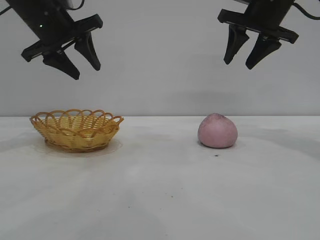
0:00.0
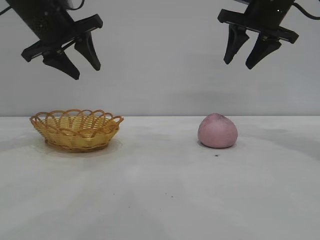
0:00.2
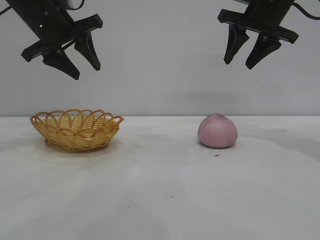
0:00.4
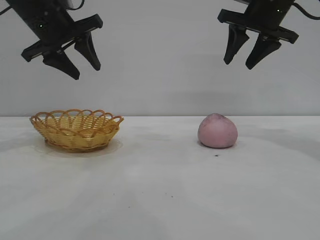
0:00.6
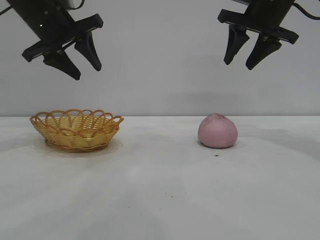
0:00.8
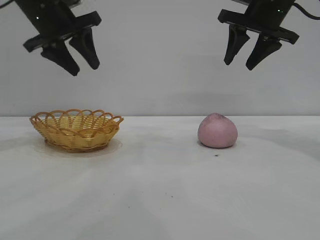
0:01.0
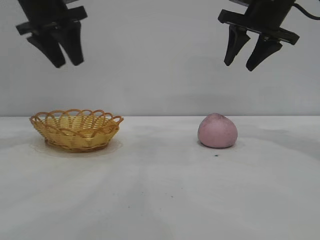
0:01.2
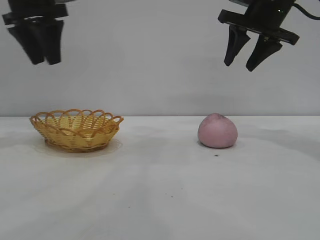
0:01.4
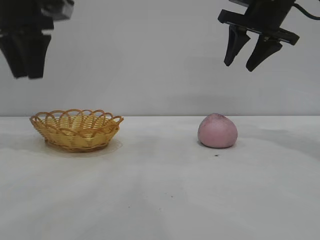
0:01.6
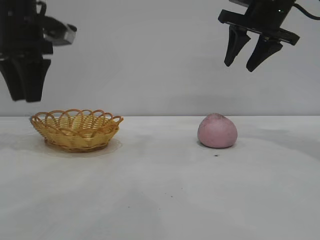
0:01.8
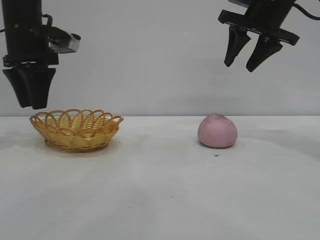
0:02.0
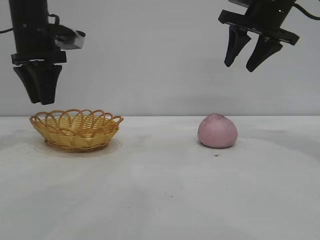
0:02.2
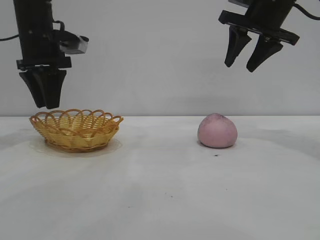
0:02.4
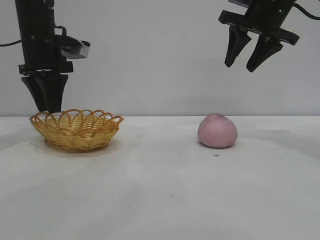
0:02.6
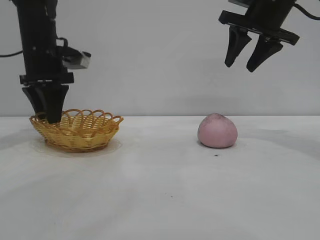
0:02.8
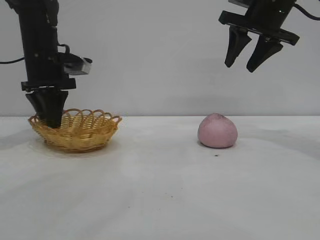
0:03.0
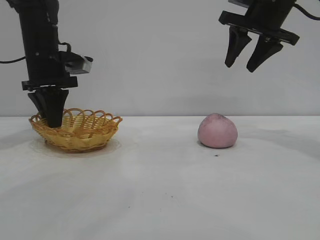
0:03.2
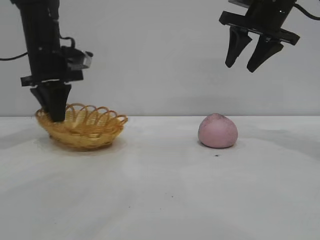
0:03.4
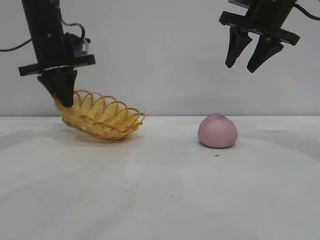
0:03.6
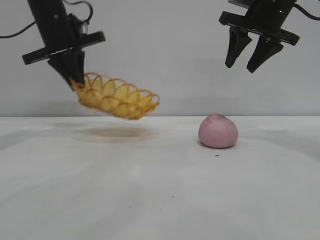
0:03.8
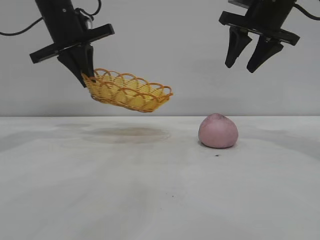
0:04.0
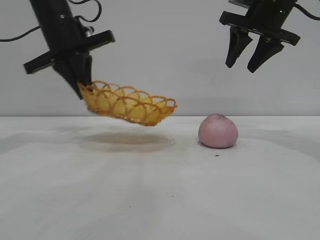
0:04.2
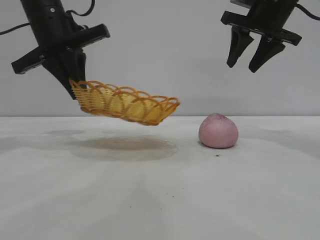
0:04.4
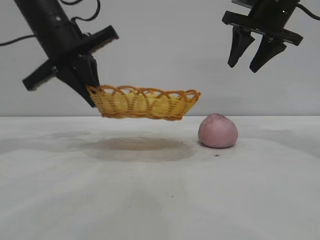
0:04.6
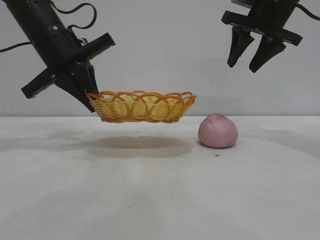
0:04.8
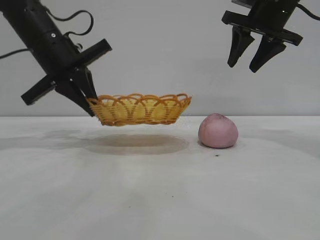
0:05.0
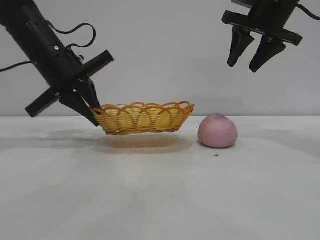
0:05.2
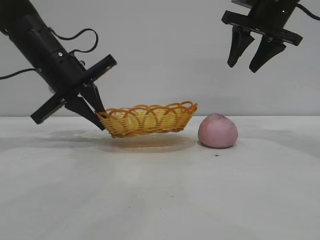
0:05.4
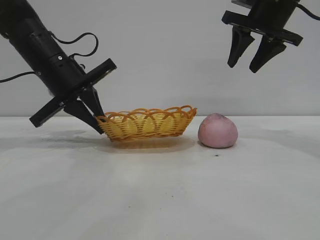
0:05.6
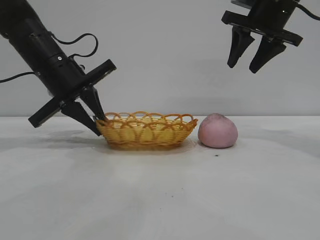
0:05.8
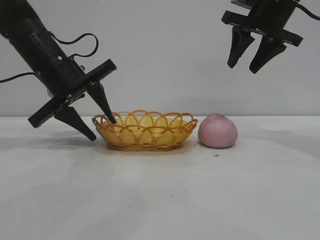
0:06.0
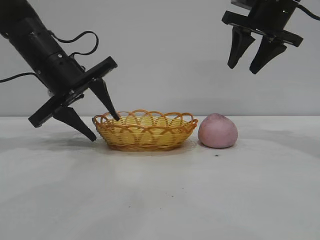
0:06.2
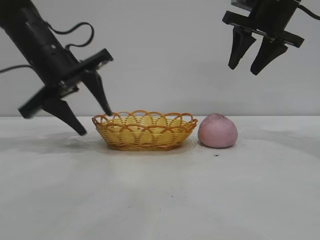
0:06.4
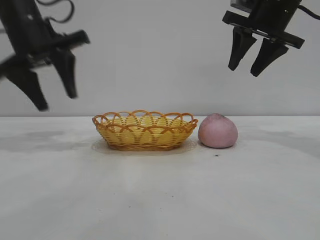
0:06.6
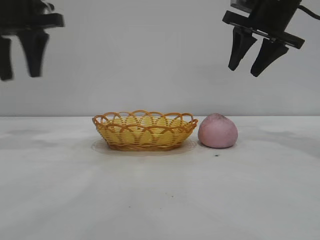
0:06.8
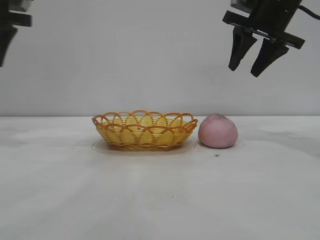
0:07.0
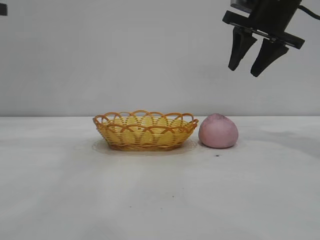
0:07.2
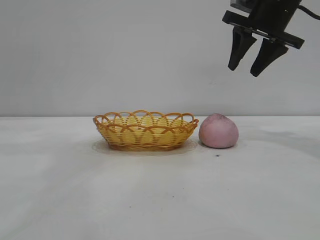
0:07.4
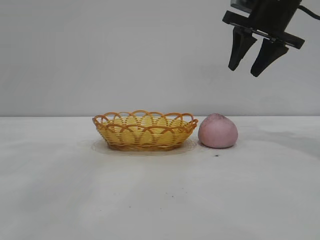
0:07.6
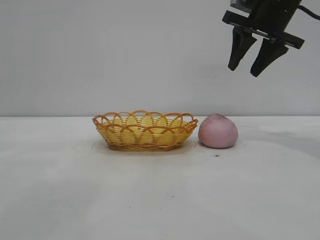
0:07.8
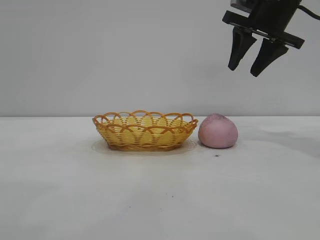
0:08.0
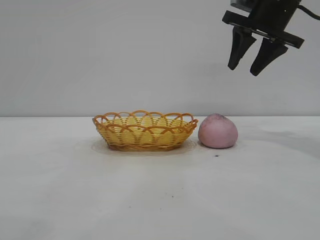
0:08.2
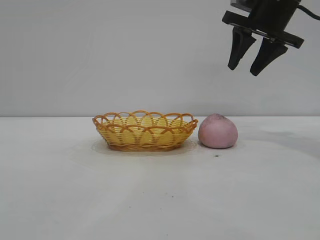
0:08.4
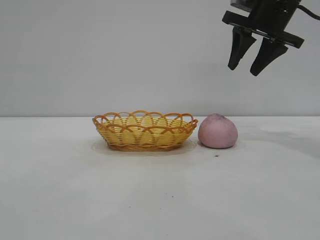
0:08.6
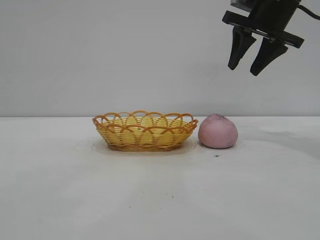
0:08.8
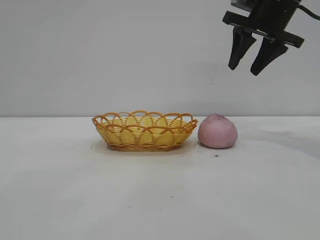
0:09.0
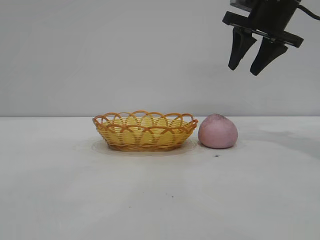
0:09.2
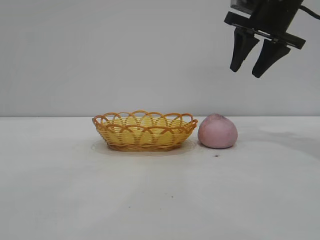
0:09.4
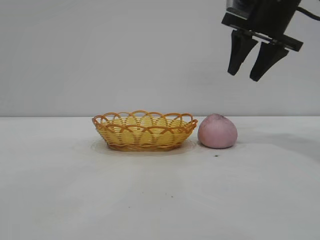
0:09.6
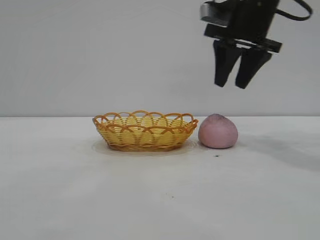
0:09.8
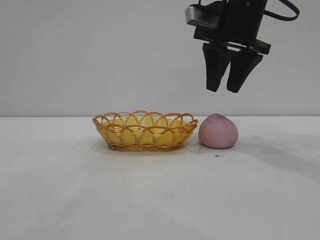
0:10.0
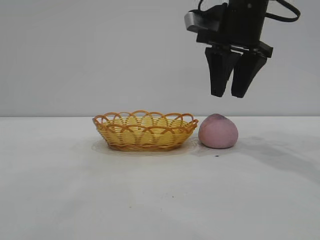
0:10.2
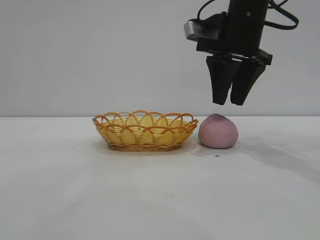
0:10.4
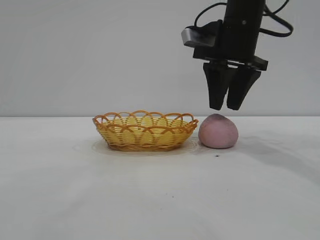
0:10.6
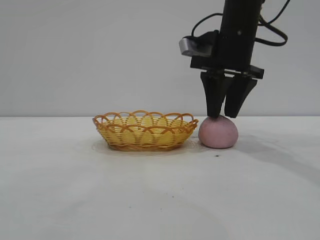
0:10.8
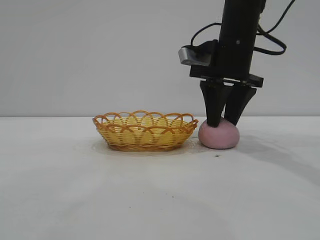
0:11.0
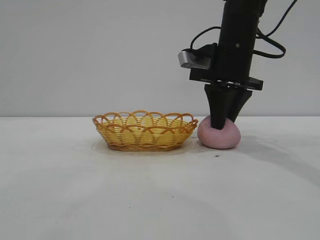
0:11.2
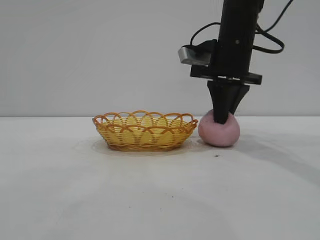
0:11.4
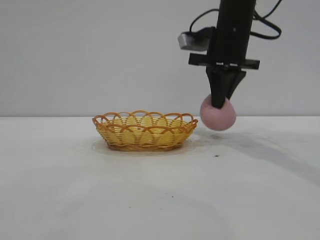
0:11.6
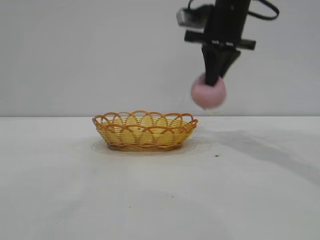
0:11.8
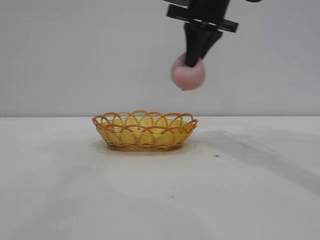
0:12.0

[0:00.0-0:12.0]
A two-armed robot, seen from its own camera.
Task of the whole recording: pick up the peach and put it into the basket.
Step, 0:00.0 to 0:06.4: Move the basket to the center of view.
Step, 0:06.6 to 0:11.6: Pick up the peach.

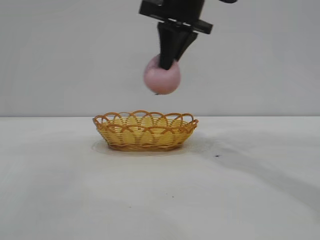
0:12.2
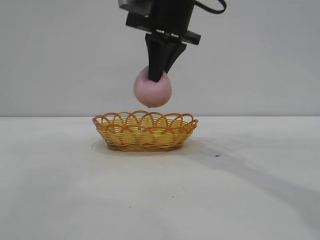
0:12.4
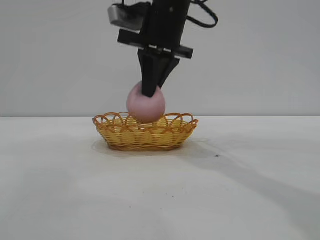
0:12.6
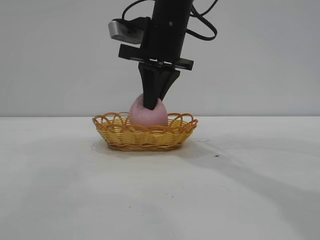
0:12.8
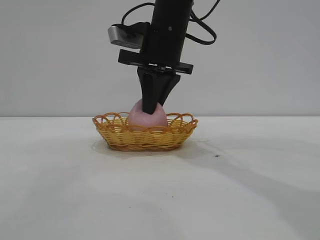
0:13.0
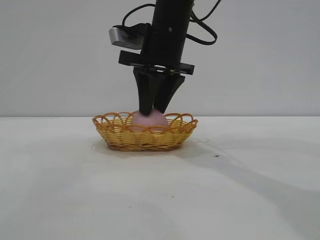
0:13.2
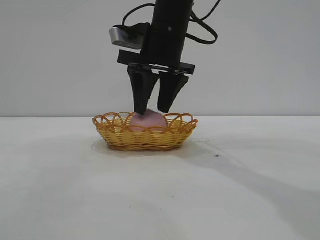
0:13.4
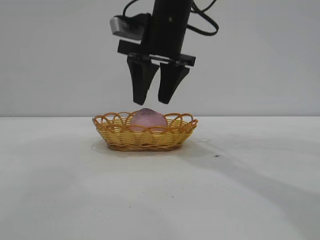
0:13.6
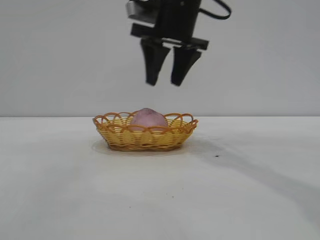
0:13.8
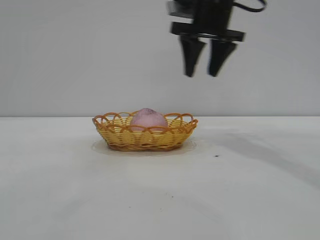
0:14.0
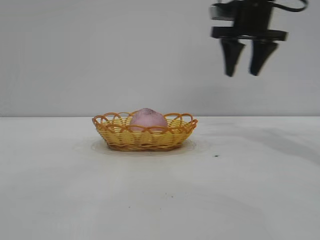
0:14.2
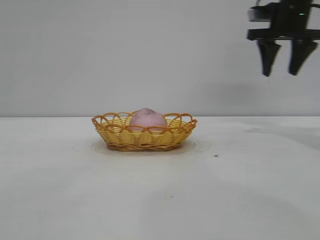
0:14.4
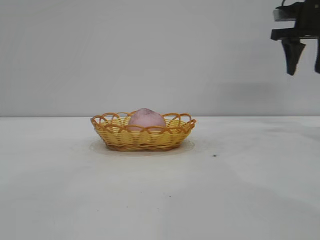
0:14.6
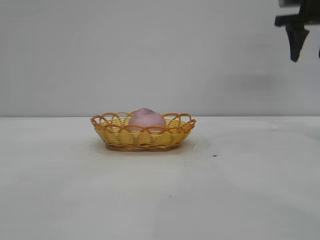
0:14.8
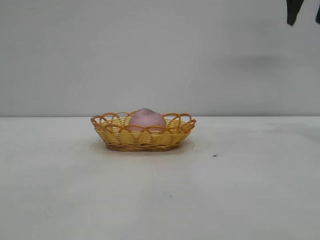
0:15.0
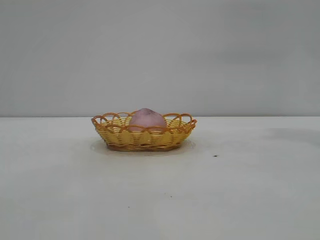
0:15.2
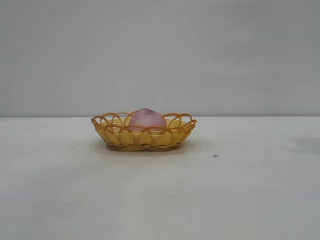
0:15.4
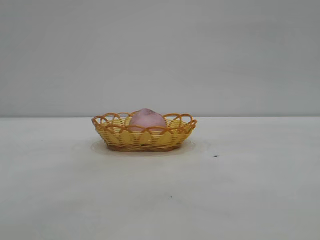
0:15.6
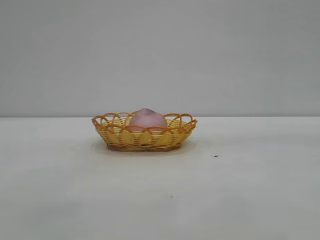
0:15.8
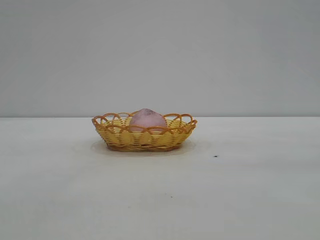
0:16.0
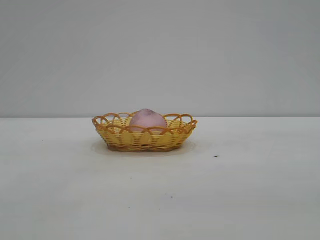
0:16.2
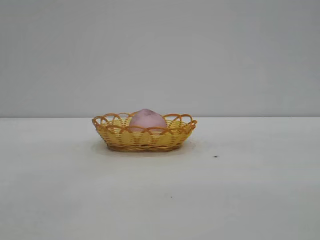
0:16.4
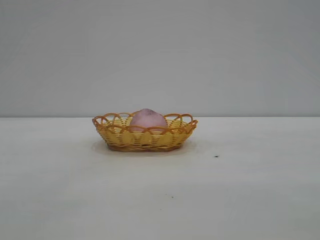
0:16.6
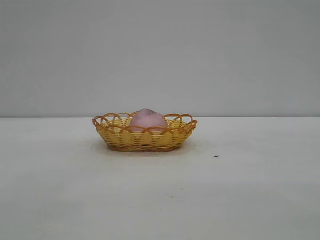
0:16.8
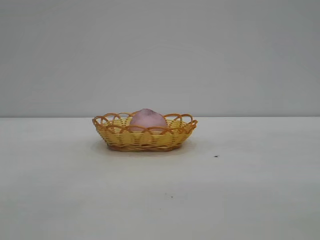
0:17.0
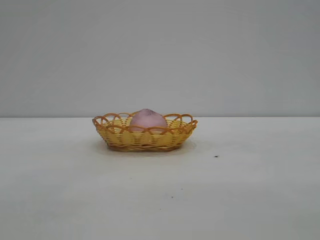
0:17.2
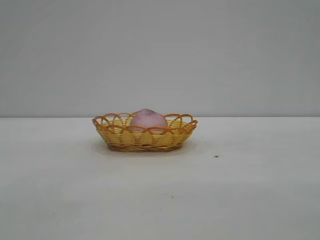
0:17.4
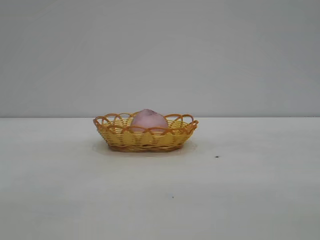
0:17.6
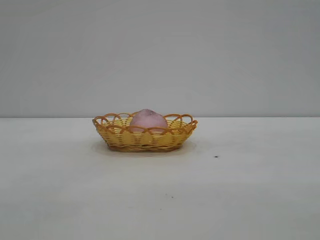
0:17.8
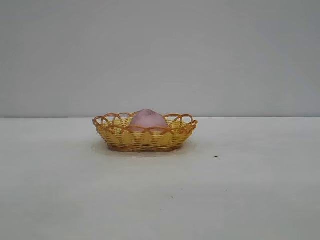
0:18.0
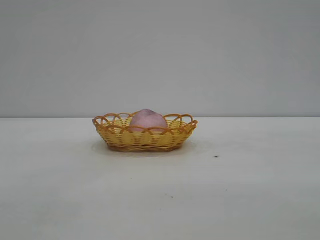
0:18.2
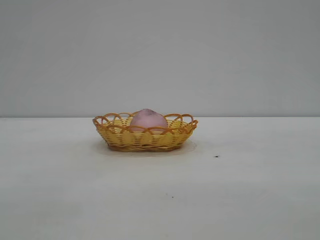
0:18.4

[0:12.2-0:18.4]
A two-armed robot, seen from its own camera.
Task of the whole recording: pick up the peach and put it into the basket.
Step, 0:12.2 to 0:13.6: place the peach into the basket.

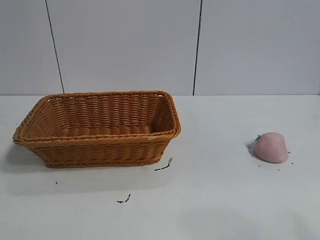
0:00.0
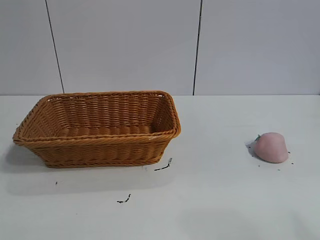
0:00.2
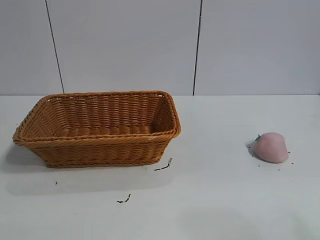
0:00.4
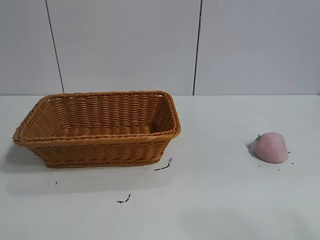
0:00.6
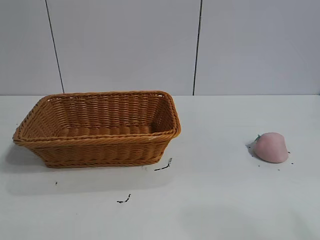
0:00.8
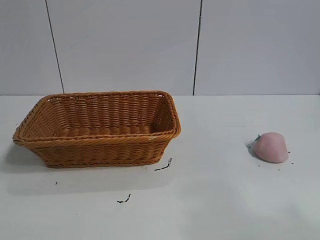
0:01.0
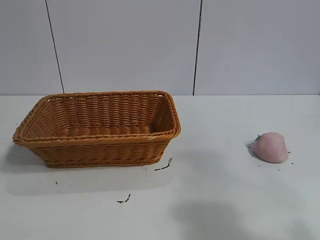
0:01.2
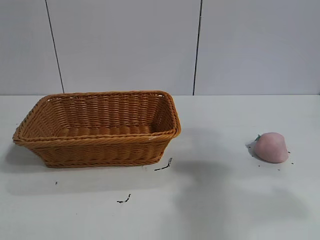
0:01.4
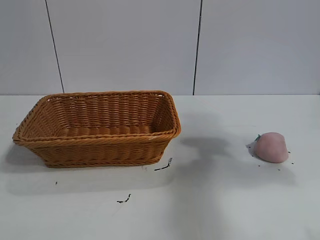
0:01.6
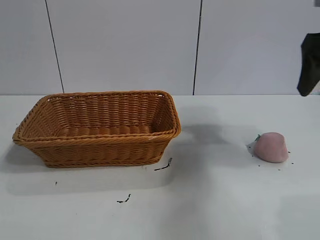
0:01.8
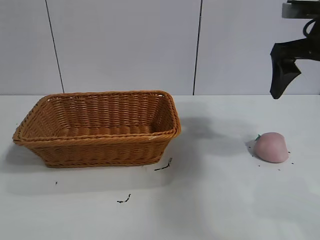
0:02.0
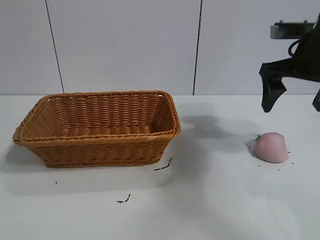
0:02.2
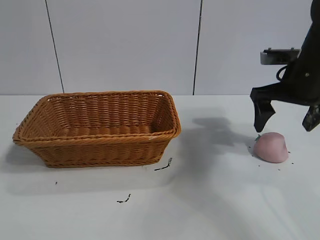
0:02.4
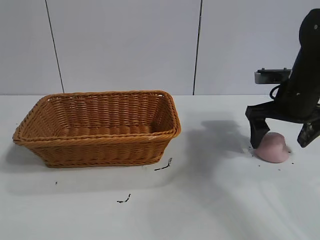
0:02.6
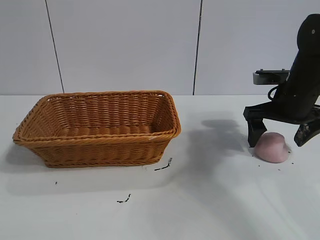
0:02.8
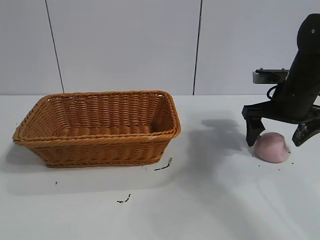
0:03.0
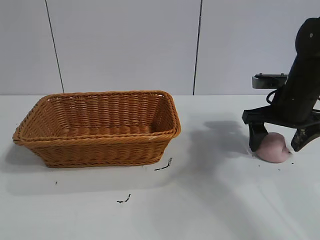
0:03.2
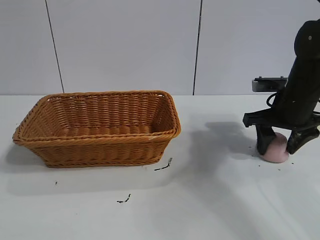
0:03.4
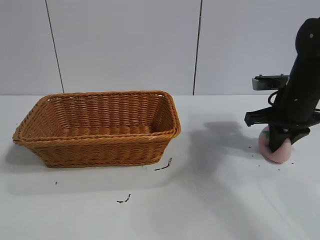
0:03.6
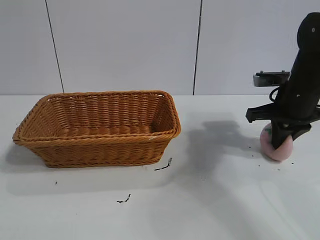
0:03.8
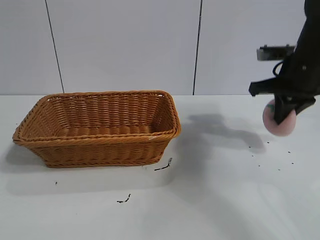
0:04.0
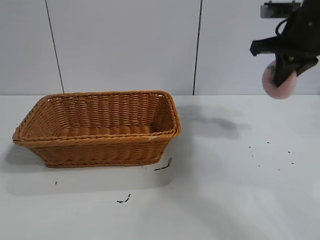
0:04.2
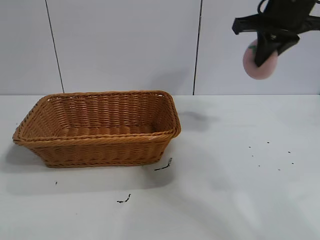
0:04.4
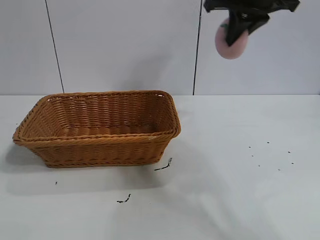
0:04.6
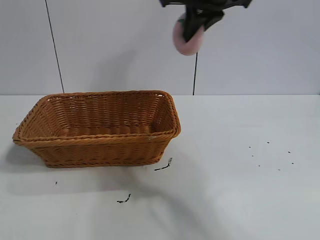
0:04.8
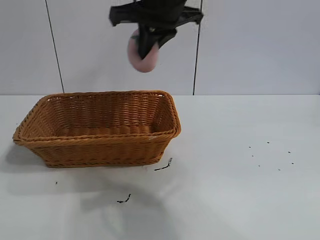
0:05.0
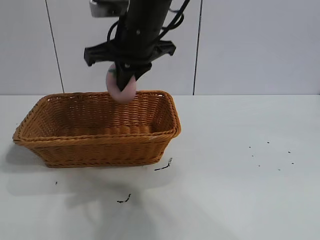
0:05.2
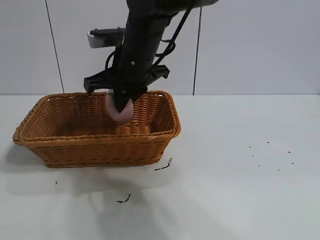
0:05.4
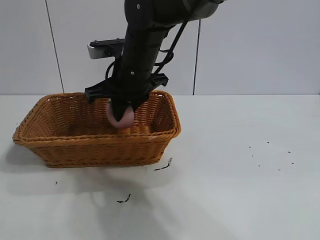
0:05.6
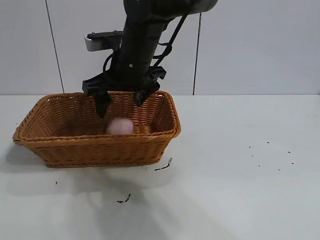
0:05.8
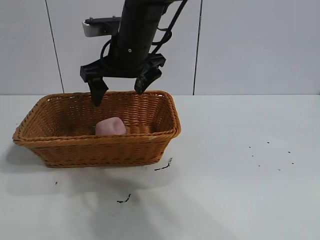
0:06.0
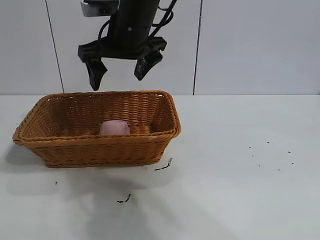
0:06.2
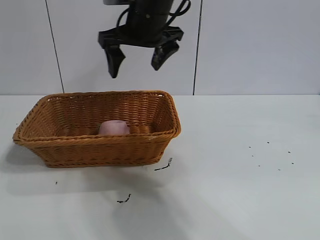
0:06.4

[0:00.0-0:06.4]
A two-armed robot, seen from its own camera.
Task of the whole recording: pick up the peach and put it into the basket.
Step, 0:00.8 to 0:03.6: Grasp the peach with right gripper.
Step, 0:03.8 to 0:05.8: Place the peach in the basket with right gripper.
